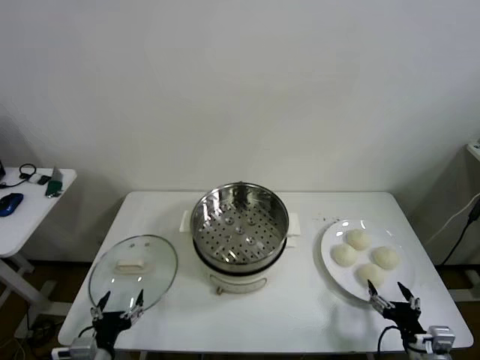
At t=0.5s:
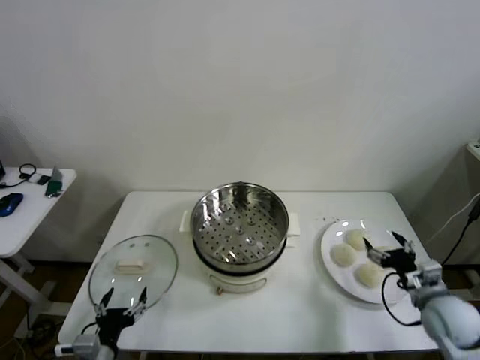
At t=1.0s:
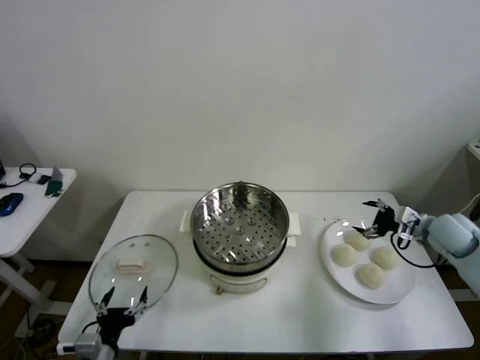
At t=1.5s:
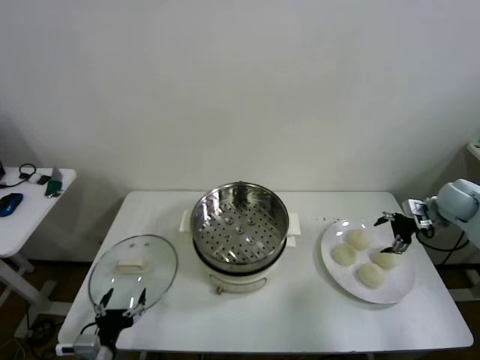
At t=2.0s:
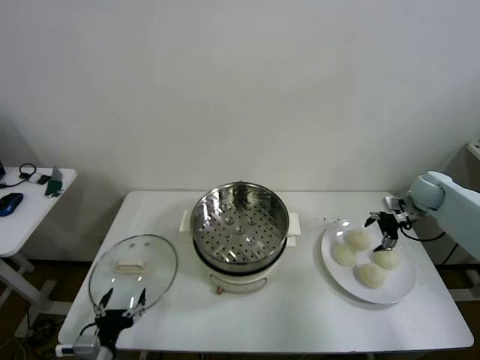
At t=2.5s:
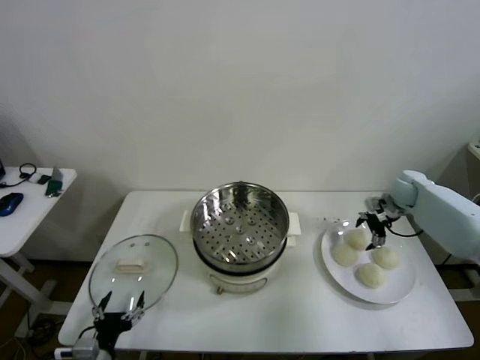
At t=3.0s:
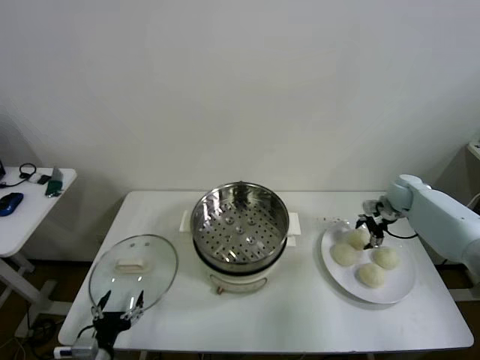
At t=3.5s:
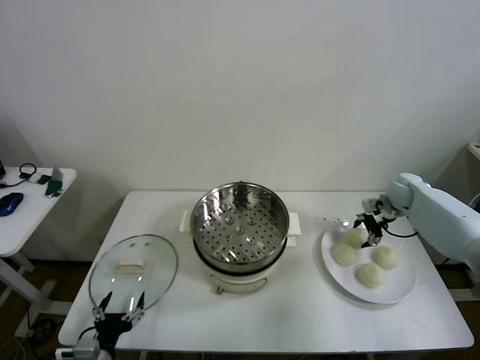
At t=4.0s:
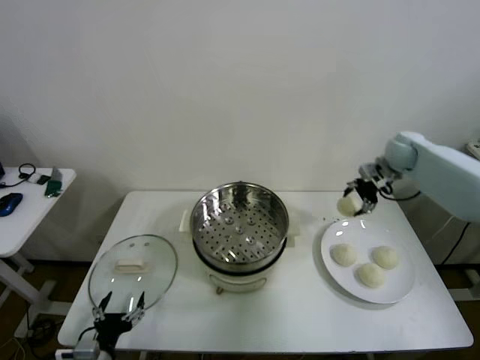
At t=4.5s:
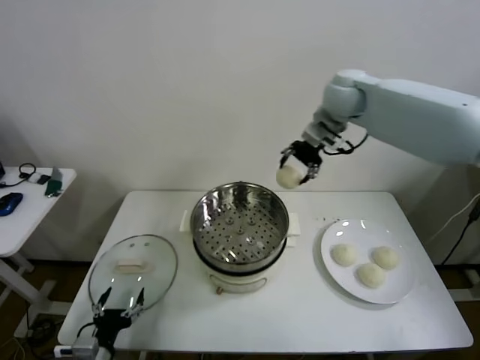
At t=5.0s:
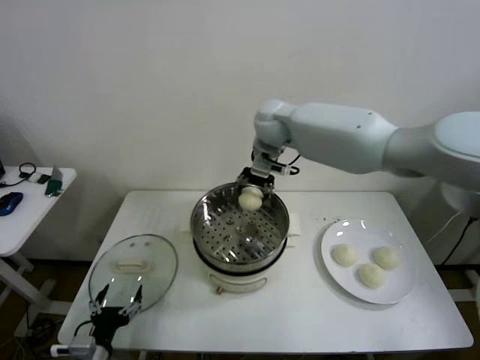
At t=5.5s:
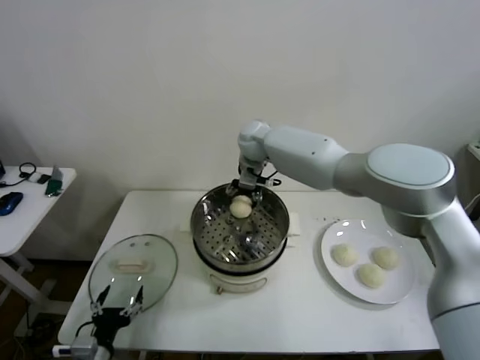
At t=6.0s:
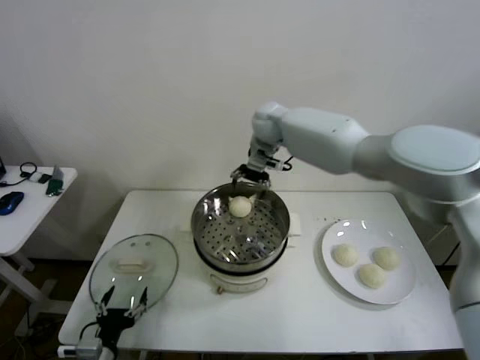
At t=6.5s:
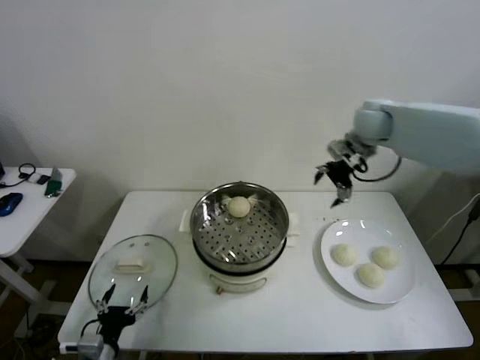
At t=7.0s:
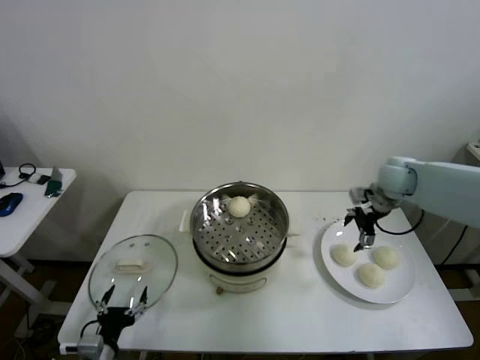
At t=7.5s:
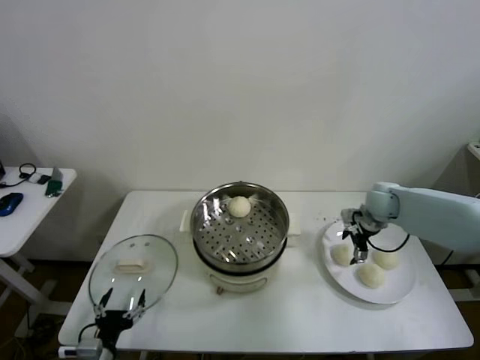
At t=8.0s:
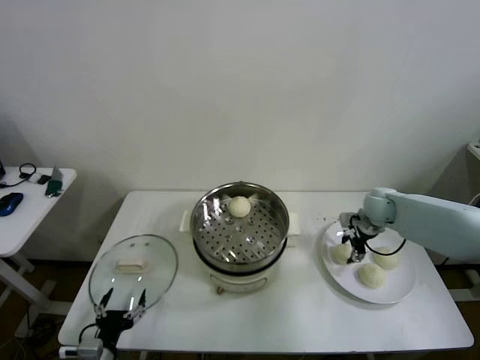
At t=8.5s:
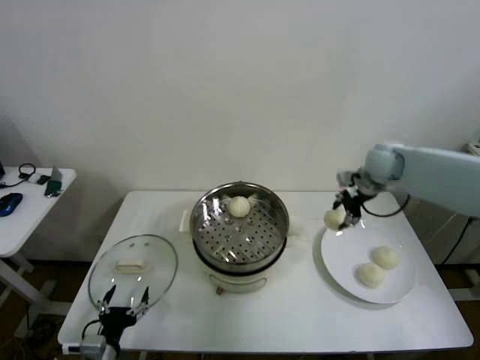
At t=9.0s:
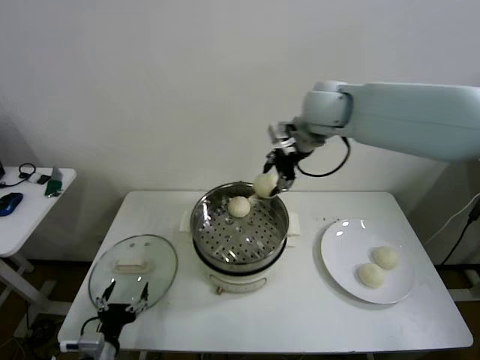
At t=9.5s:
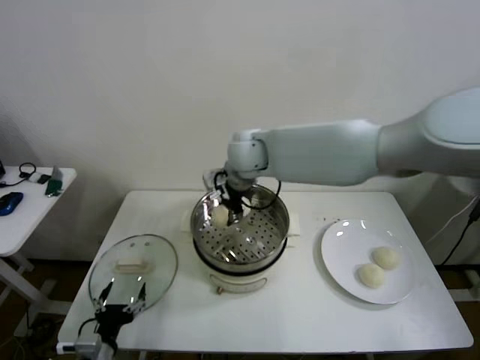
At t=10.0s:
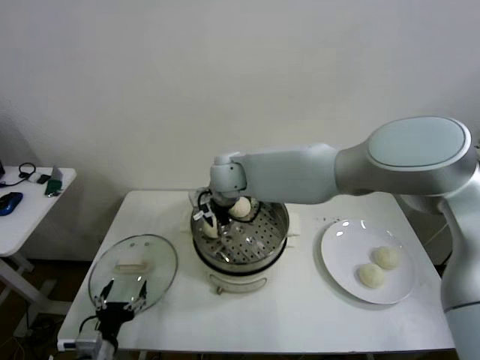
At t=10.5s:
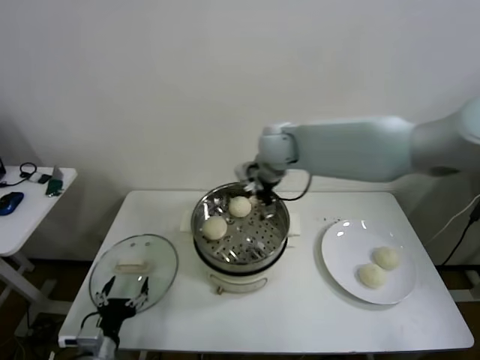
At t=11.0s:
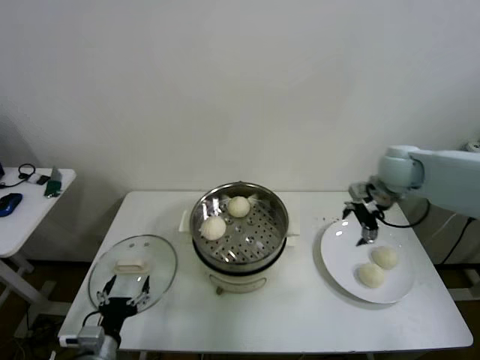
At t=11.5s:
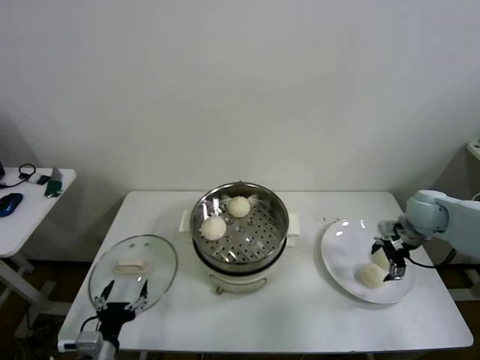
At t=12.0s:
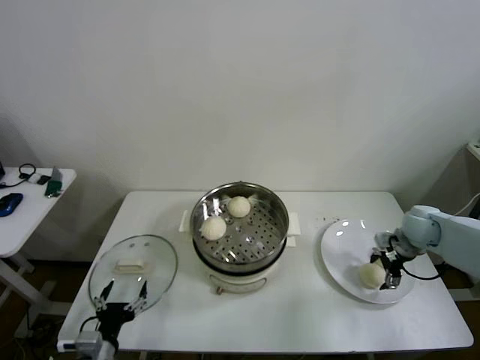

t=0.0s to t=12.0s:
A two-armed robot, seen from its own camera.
Step, t=0.0s to t=3.0s: Grasp the baozi in the plate with right gripper.
Step, t=3.5s to t=5.5s: Place the baozi on the steamer with right gripper.
Step, t=6.0s to t=8.0s: Grasp the baozi in the plate with right gripper.
Step, t=8.5s to t=10.0s: Place the baozi on the steamer with right gripper.
t=2.0s to t=4.0s: The right gripper is displaced upward, to the left and forward by roughly 15 cm, and closes.
t=4.0s to t=6.0s: The right gripper is displaced to the left by some 30 cm, and opens.
t=6.0s to t=8.0s: The right gripper travels to the right and downward by about 35 cm, and closes up.
t=8.0s to t=10.0s: The right gripper travels to the left by some 40 cm, and opens its fingers.
t=10.0s to t=12.0s: The right gripper is displaced to the right by approximately 50 cm.

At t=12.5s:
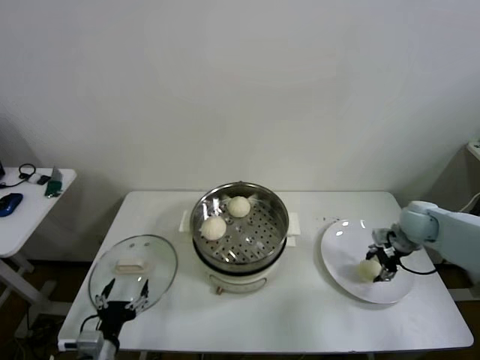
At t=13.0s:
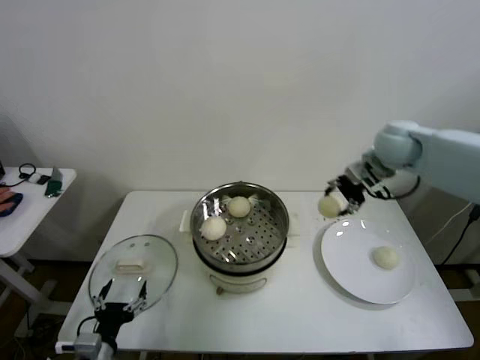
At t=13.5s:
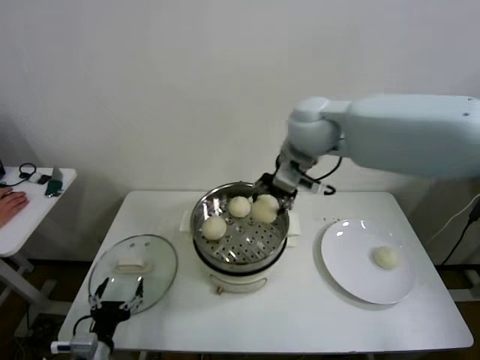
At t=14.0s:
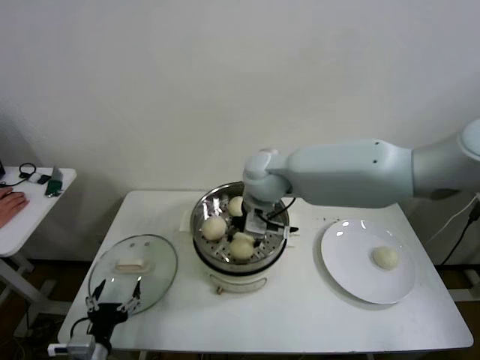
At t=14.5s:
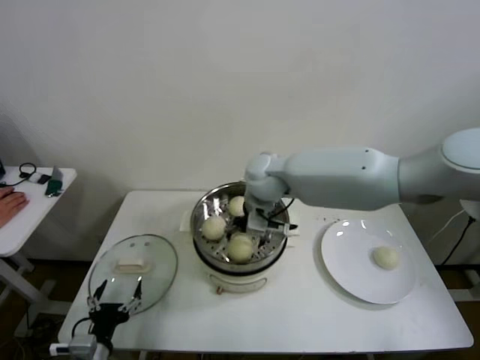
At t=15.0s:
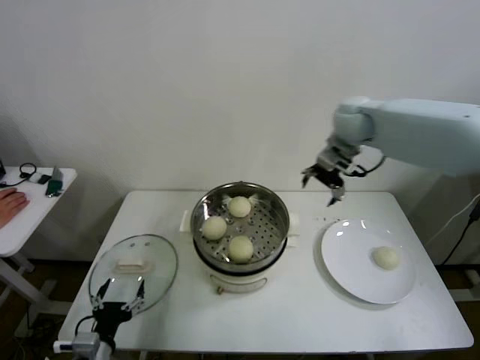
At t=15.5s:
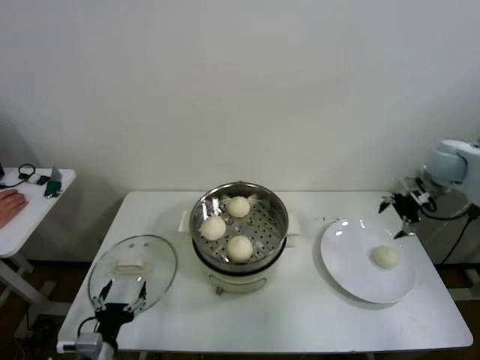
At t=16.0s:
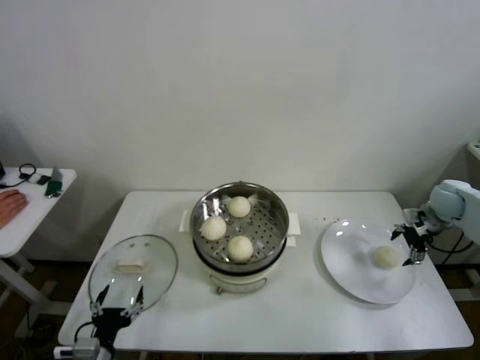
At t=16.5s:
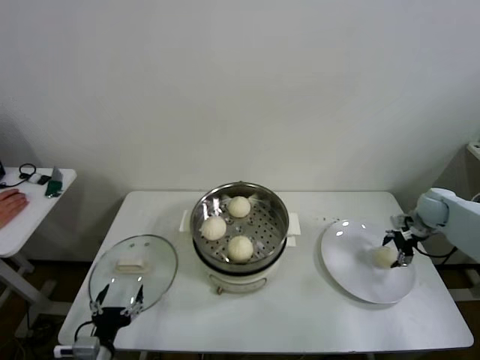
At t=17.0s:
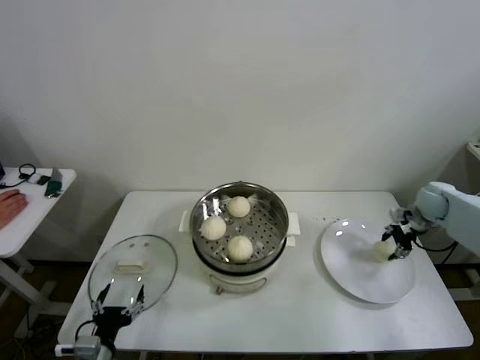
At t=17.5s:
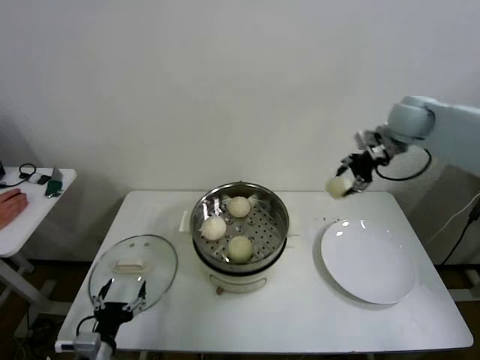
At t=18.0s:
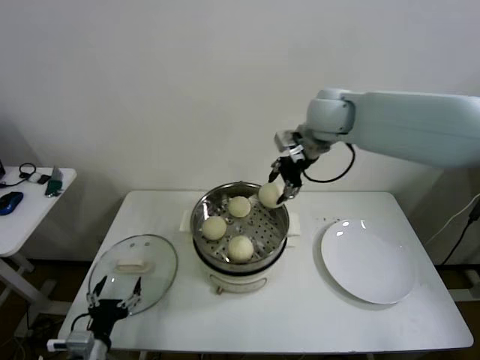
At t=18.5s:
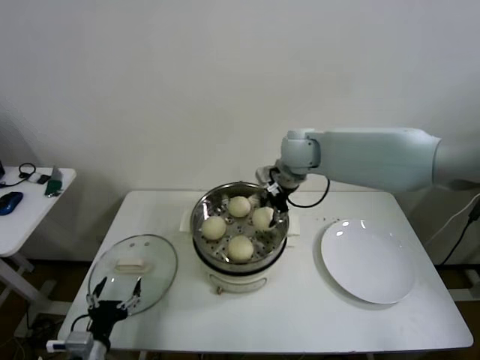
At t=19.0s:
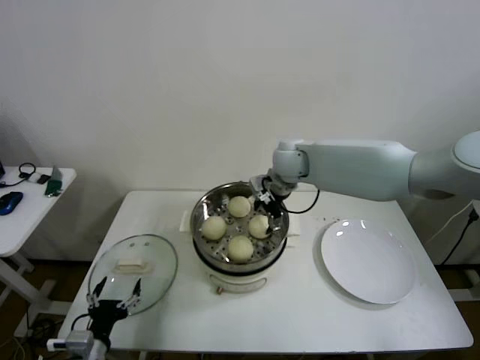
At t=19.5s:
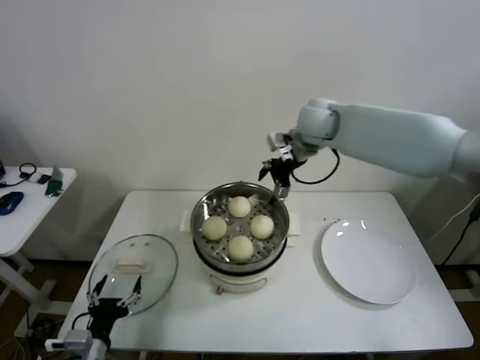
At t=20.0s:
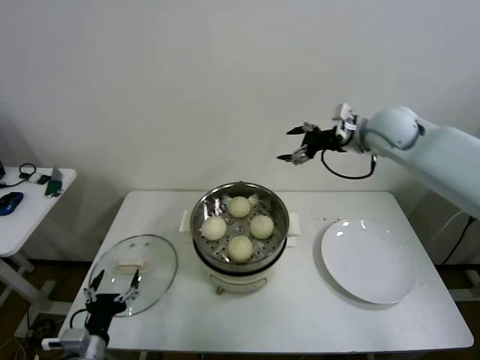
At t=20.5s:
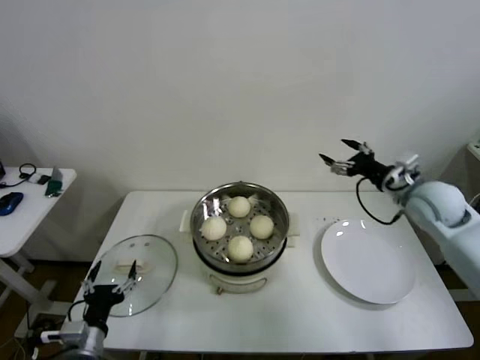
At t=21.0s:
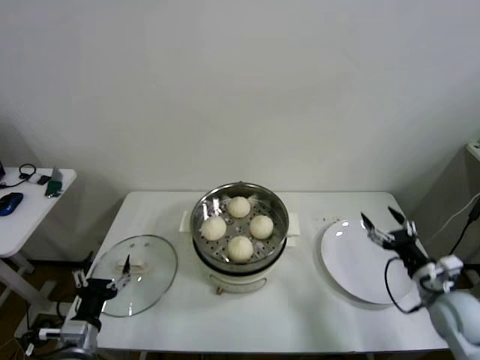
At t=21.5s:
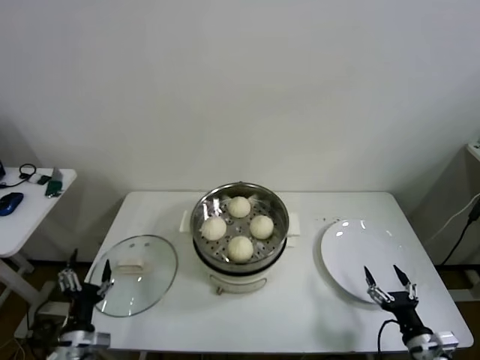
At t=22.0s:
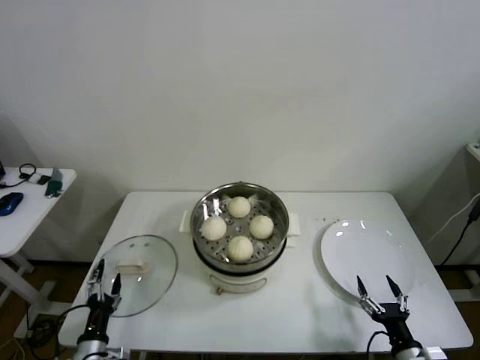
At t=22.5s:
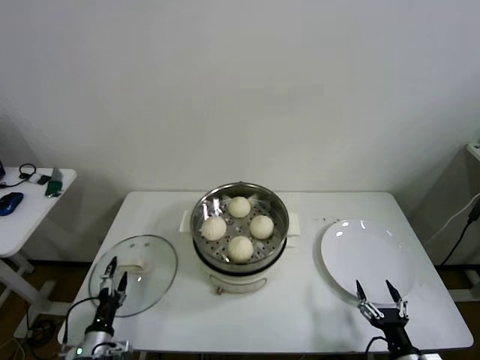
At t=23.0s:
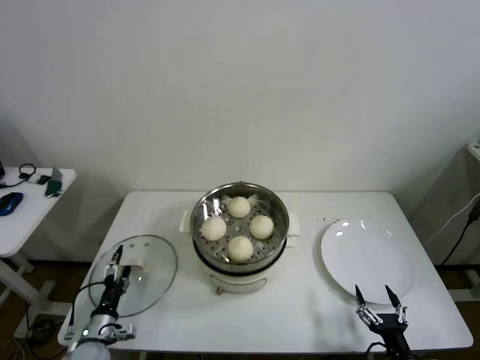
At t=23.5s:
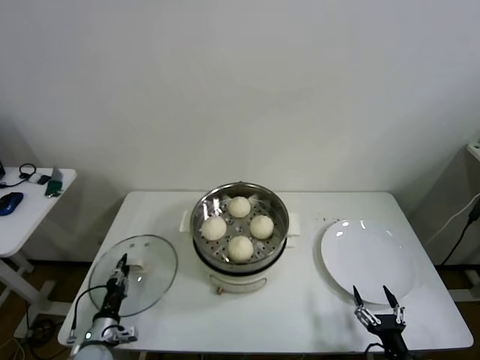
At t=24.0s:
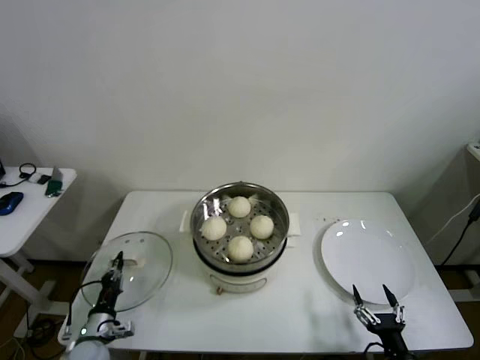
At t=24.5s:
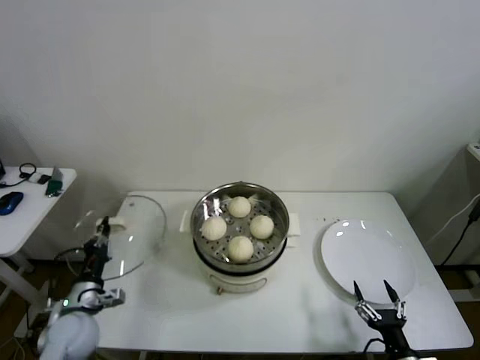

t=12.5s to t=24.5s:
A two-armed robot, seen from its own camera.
Step, t=12.5s to t=14.0s: Place the baozi on the steamer with right gripper.
Step, t=14.5s to t=16.5s: Grasp the baozi in the plate with right gripper.
Step, t=17.0s to t=19.0s: Place the baozi on the steamer with right gripper.
Step, t=19.5s to t=23.5s: Grasp the pot lid with left gripper.
t=12.5s to t=14.5s: The right gripper is displaced to the left by about 40 cm, and opens its fingers.
t=14.5s to t=16.5s: The right gripper shifts about 50 cm to the right.
t=16.5s to t=18.5s: The right gripper shifts roughly 40 cm to the left and upward, and closes its fingers.
t=18.5s to t=20.5s: The right gripper shifts about 25 cm to the right, and opens.
t=20.5s to t=22.5s: The left gripper travels downward by approximately 15 cm, while the right gripper travels backward and downward by roughly 40 cm.
t=22.5s to t=24.5s: The left gripper is displaced upward and forward by roughly 15 cm, and closes.

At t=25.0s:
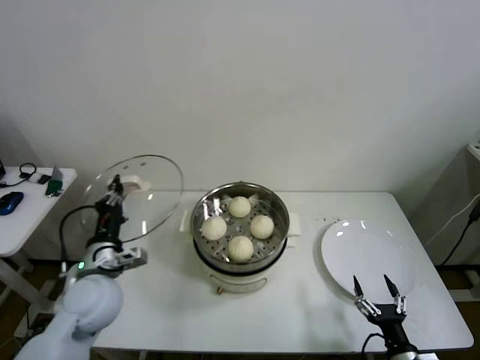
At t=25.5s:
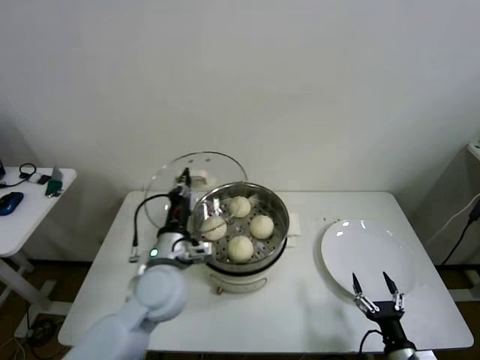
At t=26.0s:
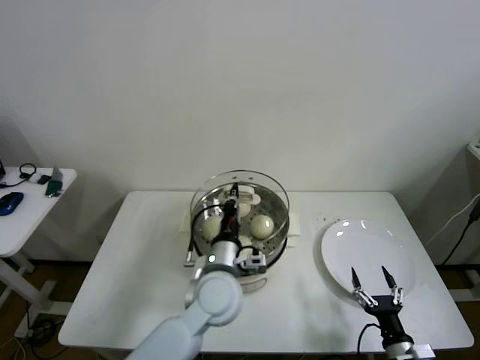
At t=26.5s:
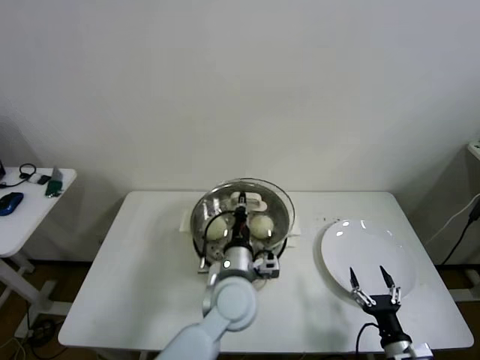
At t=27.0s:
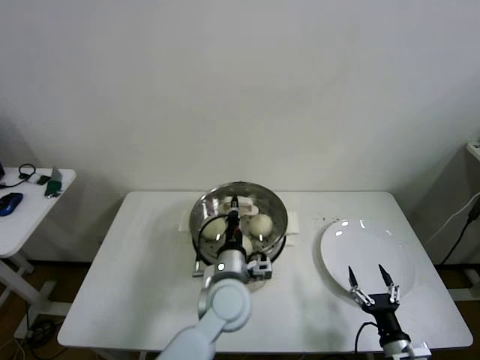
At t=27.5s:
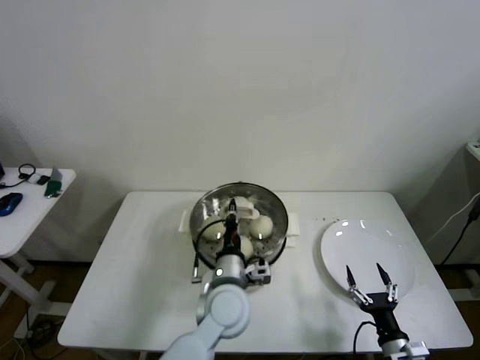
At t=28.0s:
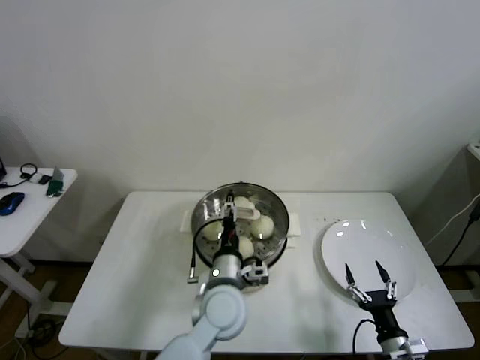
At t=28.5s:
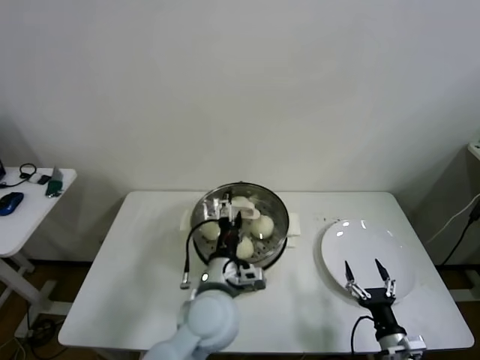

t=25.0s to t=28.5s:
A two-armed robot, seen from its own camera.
Step, t=25.0s to t=27.5s: Place the pot lid on the steamer with left gripper.
t=25.0s to t=27.0s: The left gripper heads to the right, covering some 25 cm.
t=27.0s to t=28.5s: The left gripper shifts by about 5 cm, and opens its fingers.
